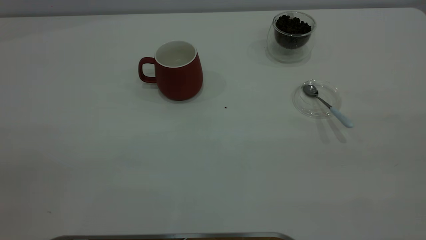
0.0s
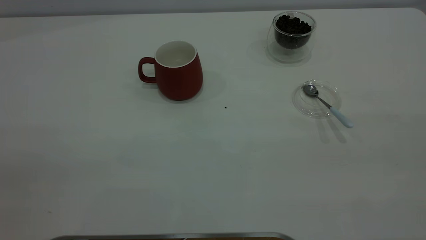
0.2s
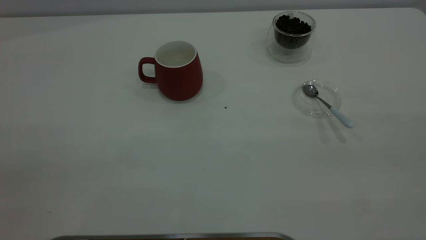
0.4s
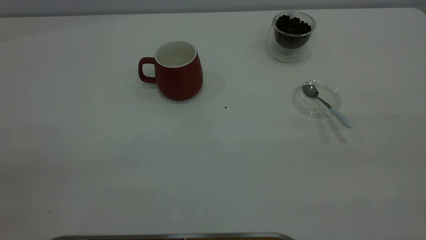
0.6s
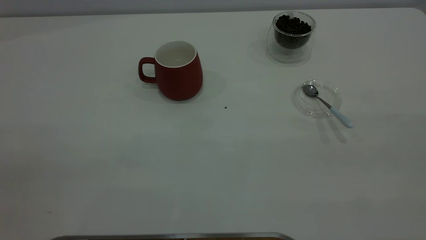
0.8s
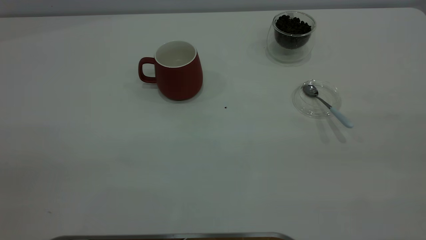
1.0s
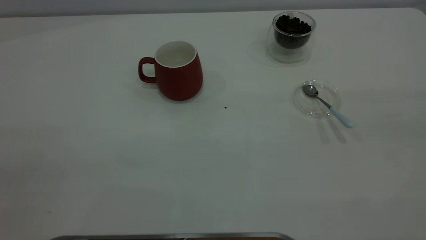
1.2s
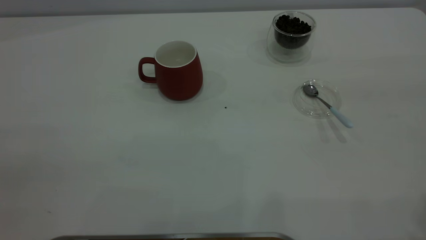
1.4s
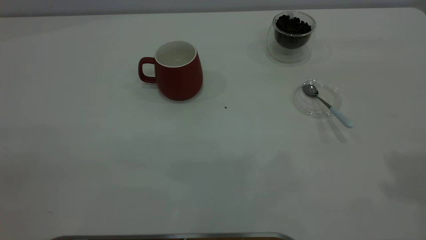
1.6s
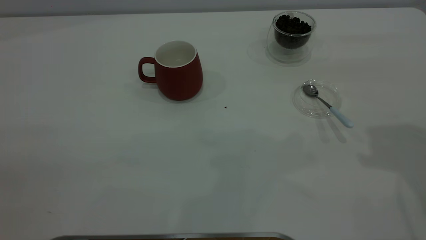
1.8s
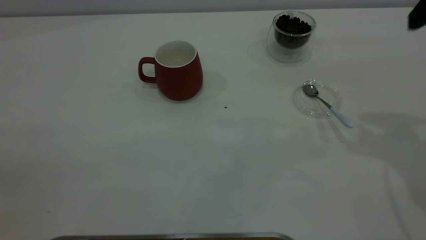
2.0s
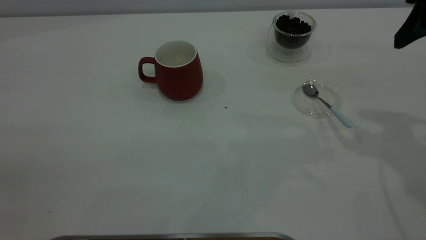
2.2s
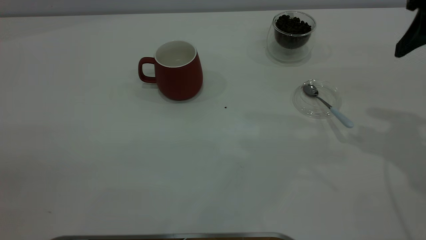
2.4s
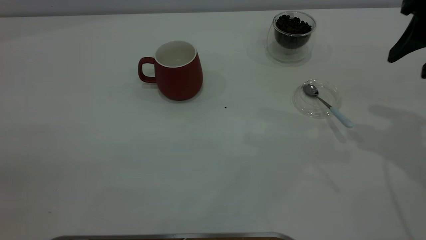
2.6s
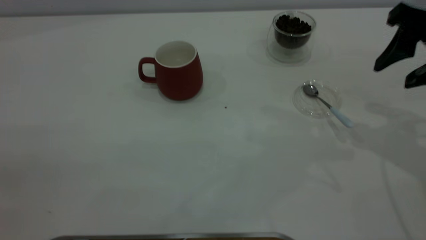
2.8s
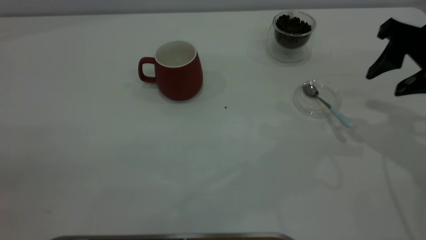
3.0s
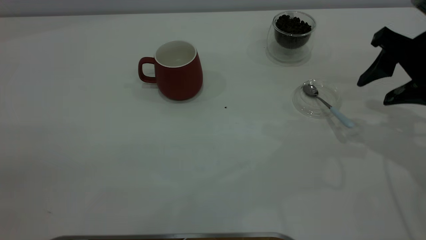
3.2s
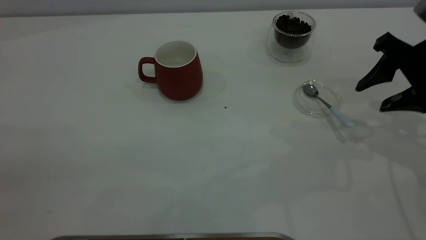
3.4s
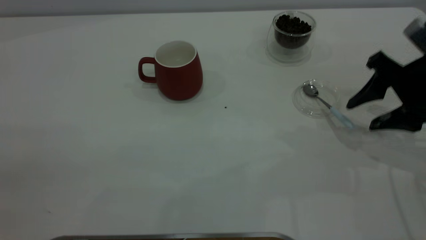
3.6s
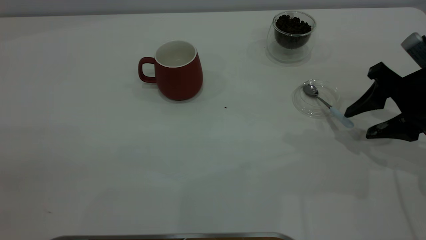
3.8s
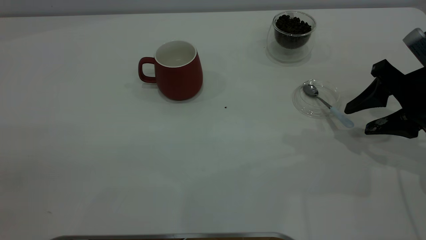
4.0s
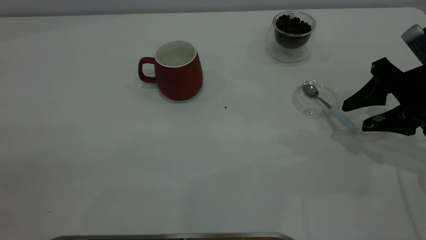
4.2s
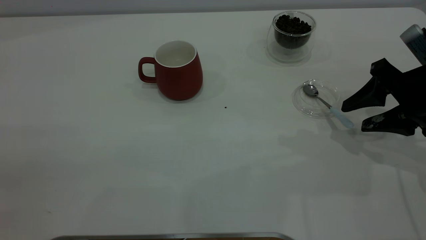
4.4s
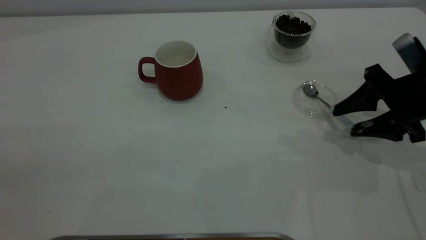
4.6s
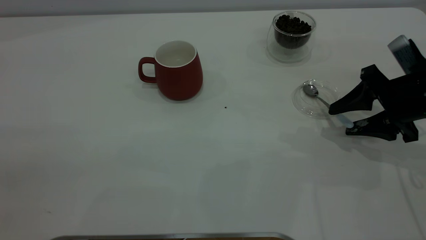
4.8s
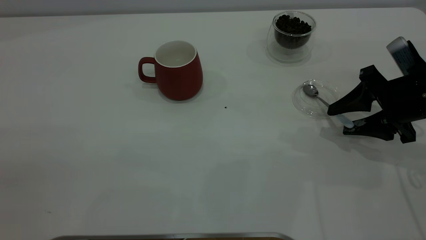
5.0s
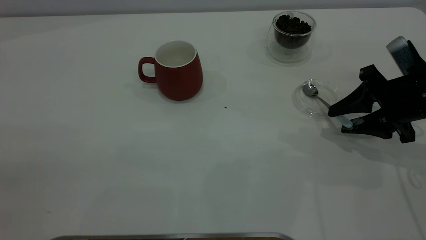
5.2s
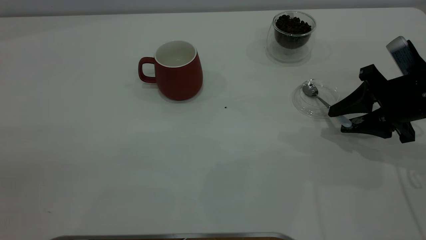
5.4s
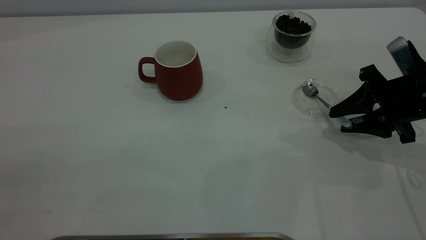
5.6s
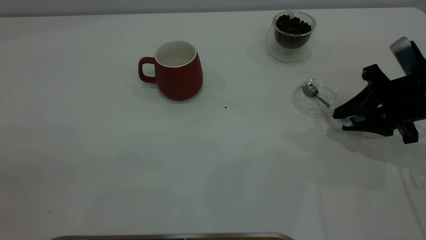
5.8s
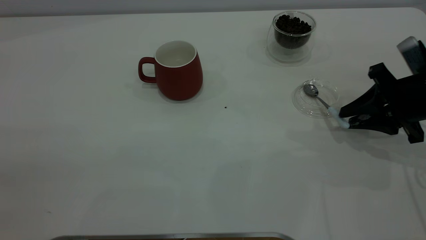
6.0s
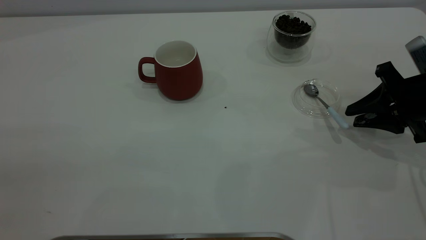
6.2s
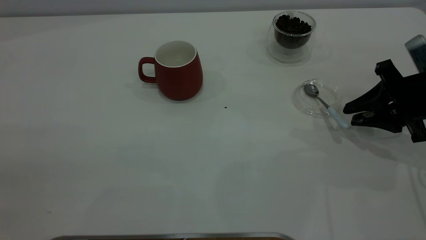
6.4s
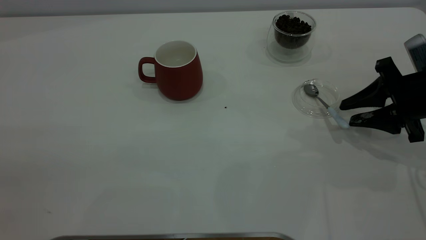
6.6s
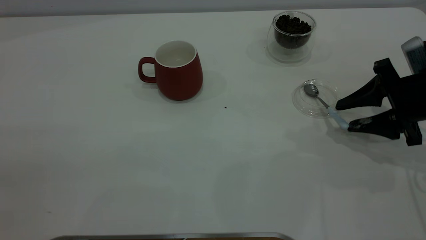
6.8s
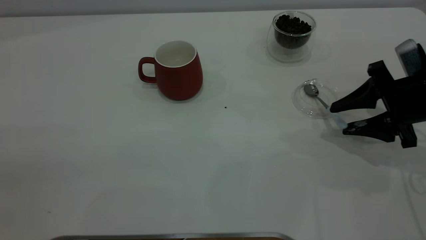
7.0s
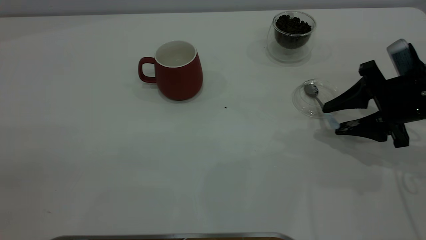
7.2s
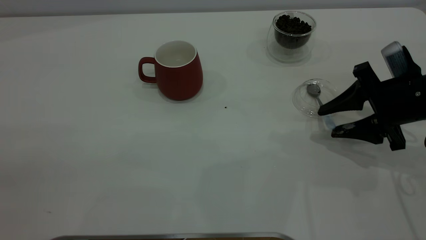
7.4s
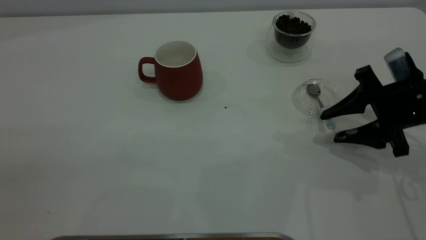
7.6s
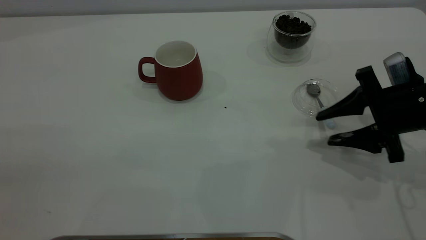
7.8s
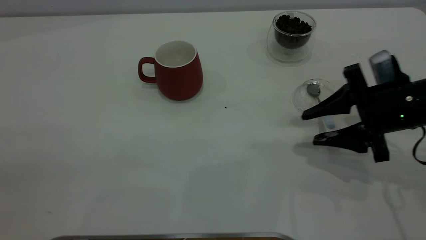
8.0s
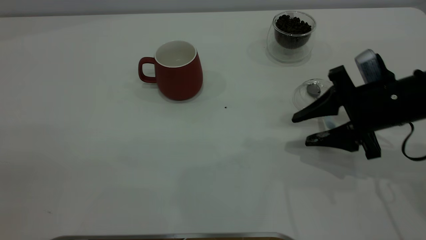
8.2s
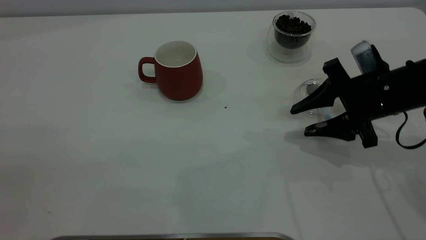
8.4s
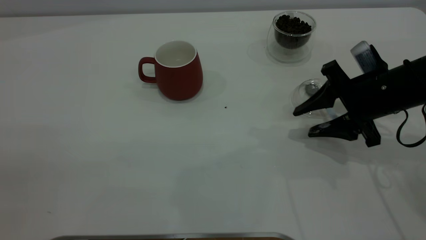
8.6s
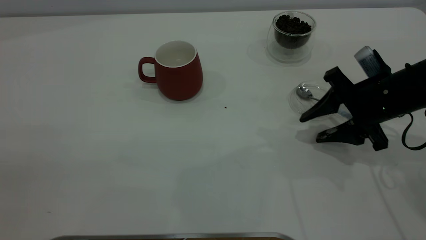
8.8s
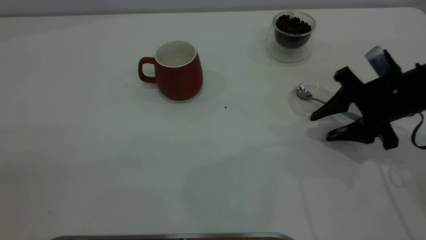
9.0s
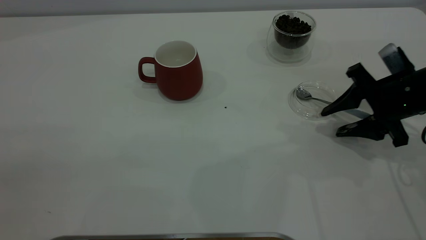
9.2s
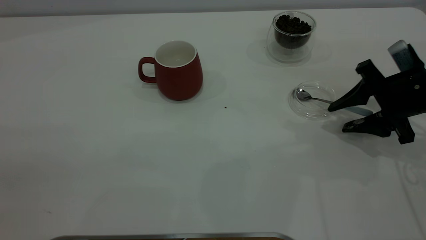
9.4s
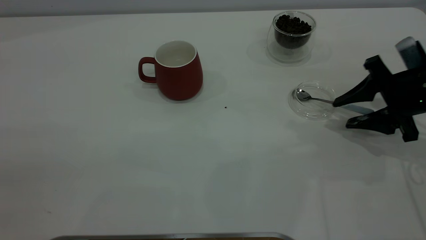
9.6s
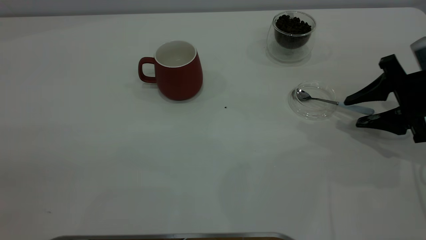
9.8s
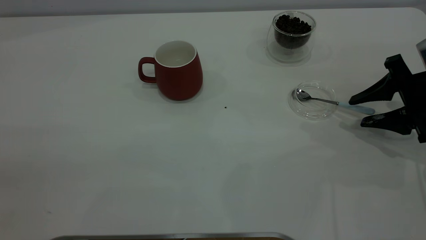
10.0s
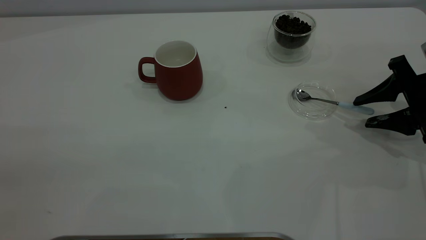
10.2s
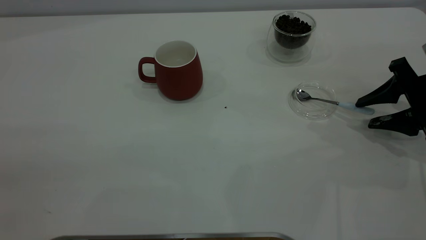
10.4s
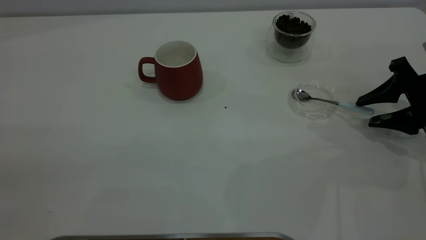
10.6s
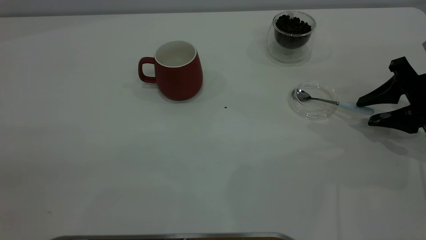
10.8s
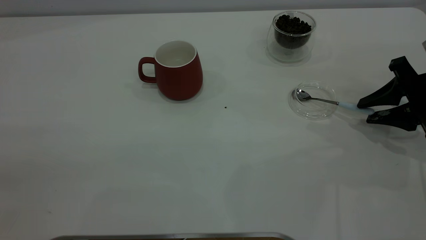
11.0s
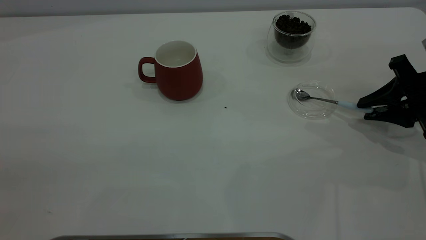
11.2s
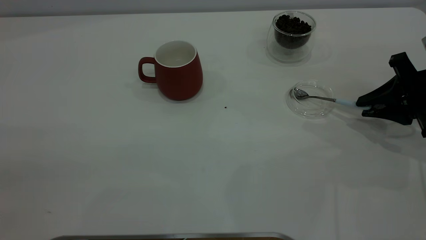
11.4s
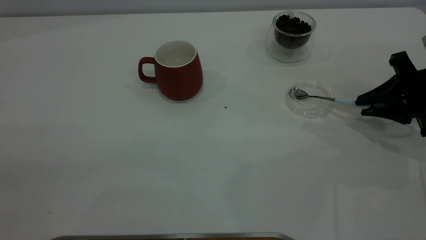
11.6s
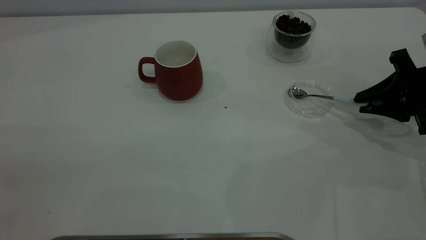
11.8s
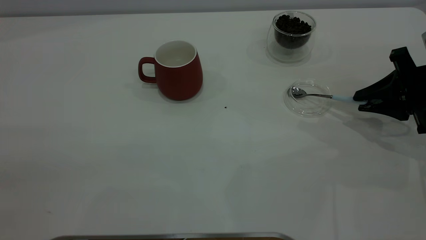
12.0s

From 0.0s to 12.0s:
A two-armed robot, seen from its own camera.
Task of the whole recording: the left gripper place the red cup in the center of the table, the right gripper take the blue spoon from the cup lid and scoop out the coffee beans from the coffee cup and put them into the red cup, the right gripper put the spoon back into the cup lid.
From 1.6s to 3.0s: The right gripper shifts roughly 20 cm downward and forward.
From 3.0s to 4.4s: The right gripper moves downward, some 5 cm.
From 4.4s to 6.0s: The right gripper closes up.
From 6.0s to 7.6s: The right gripper opens.
From 7.6s to 9.0s: The grippers move only a little.
From 9.0s to 10.4s: The right gripper travels to the right by approximately 5 cm.
From 10.4s to 12.0s: The right gripper closes.

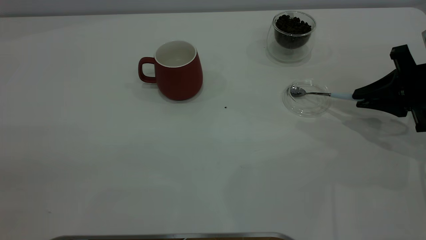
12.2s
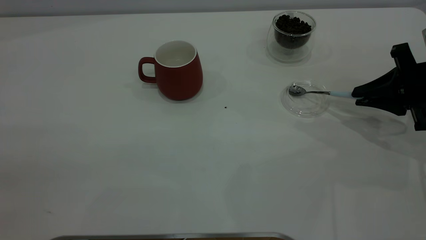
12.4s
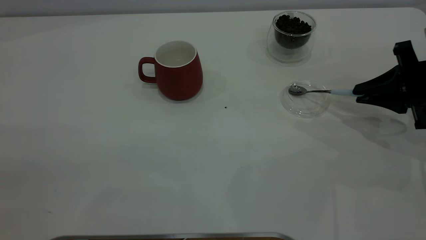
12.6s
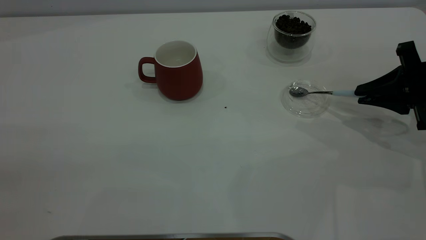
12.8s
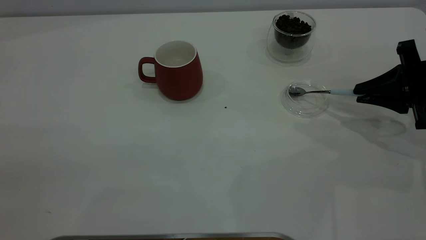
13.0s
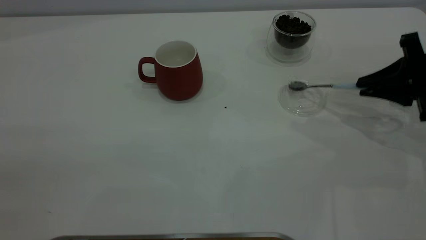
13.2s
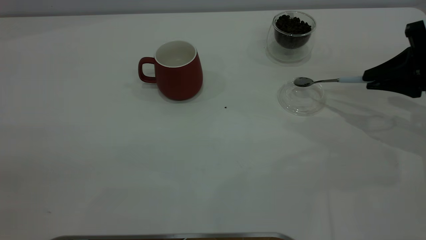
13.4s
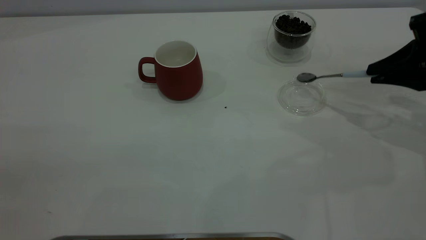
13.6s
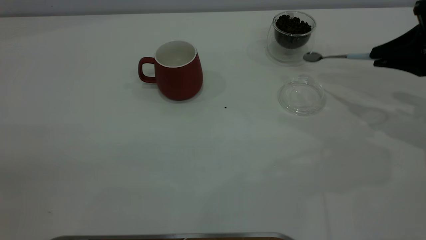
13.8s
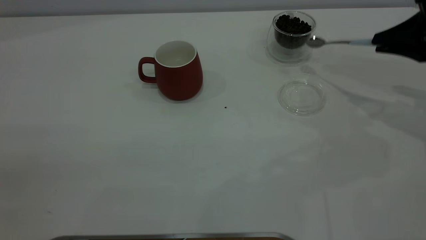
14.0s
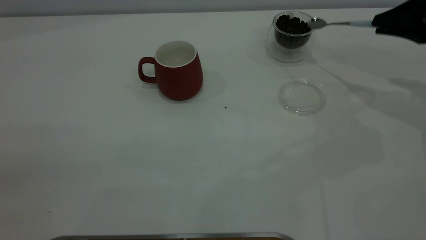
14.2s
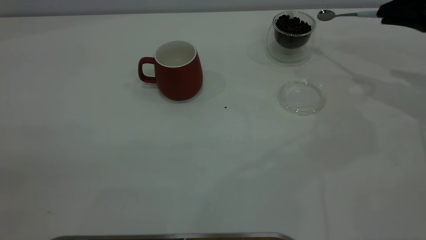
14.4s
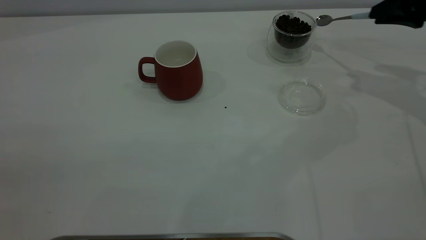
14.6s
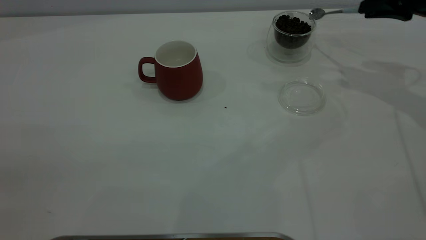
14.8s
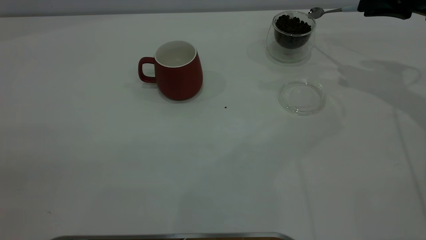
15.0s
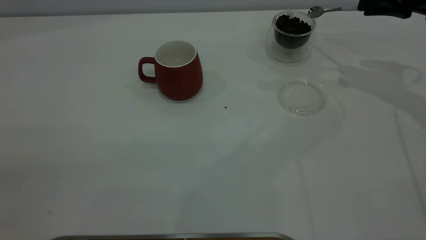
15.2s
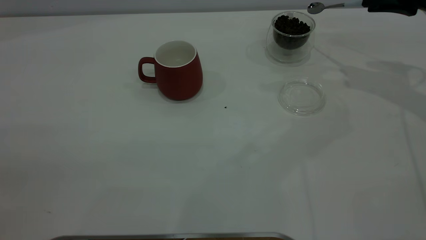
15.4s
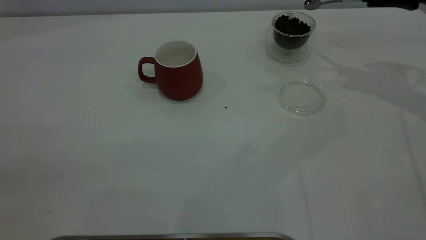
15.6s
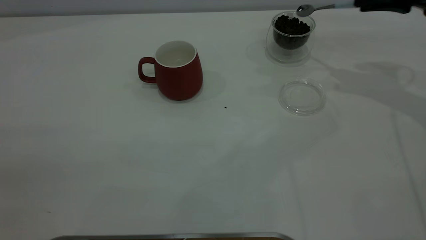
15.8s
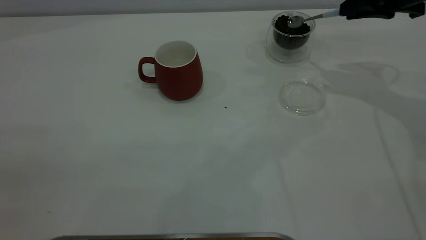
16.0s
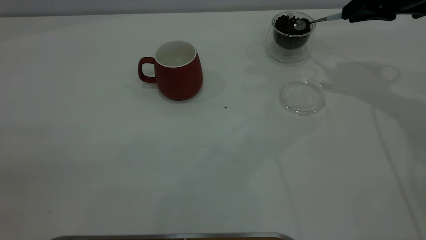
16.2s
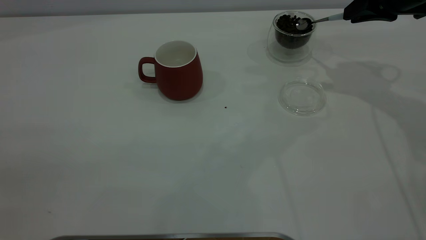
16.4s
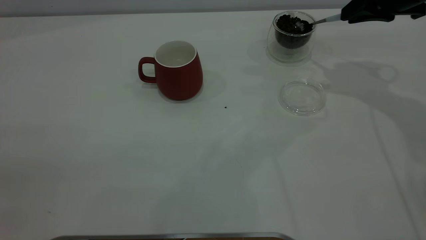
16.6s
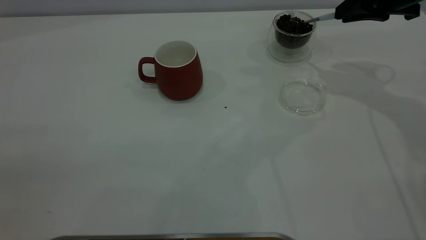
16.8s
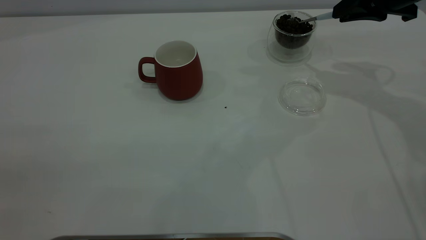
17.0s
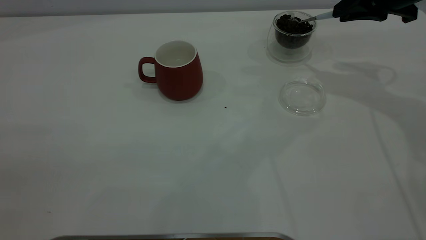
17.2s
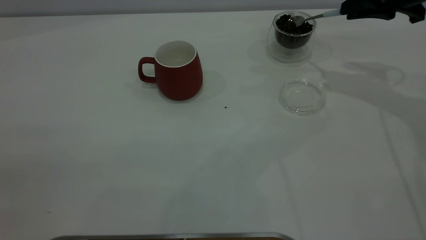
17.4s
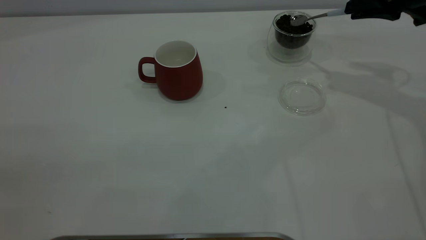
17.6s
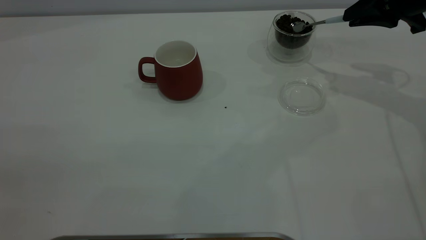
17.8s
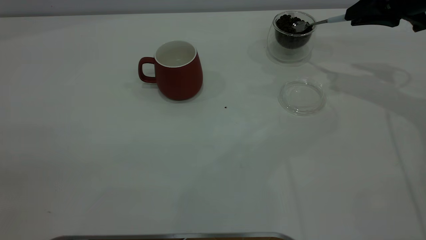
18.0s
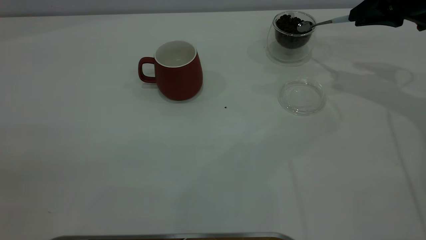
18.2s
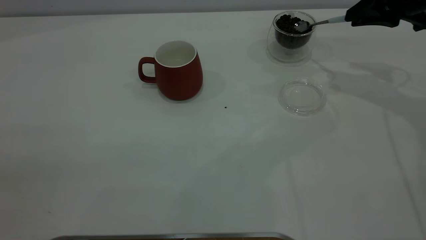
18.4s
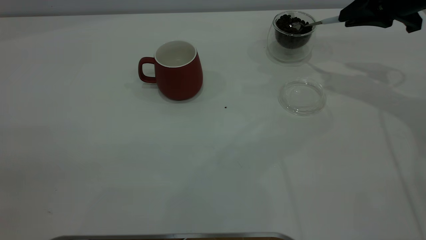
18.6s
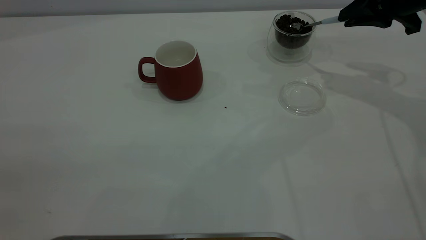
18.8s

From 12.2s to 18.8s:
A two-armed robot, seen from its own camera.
Task of the whole recording: the left gripper place the red cup in the center of the table, the right gripper take the blue spoon from the cup lid and scoop out the coffee beans from the coffee cup and put them into the red cup, the right gripper put the spoon back into the cup lid.
From 12.2s to 13.8s: The right gripper goes approximately 5 cm upward.
From 13.8s to 15.4s: The right gripper travels forward by some 10 cm.
From 15.4s to 17.2s: The right gripper moves to the left, roughly 5 cm.
From 17.2s to 18.8s: The grippers stay close to where they were, moving slightly.
